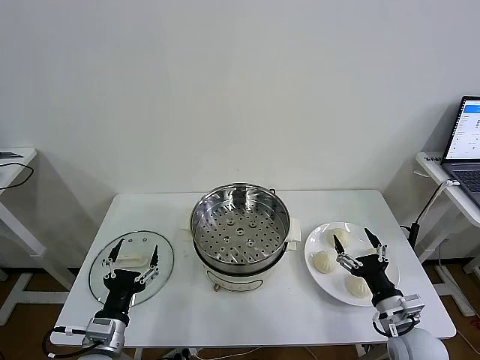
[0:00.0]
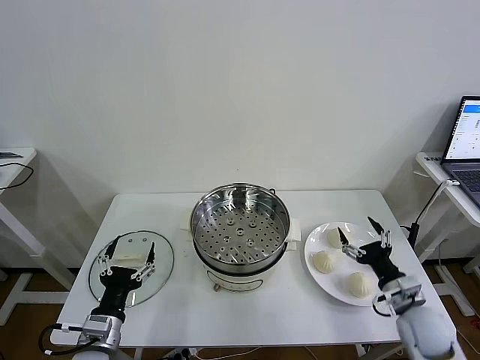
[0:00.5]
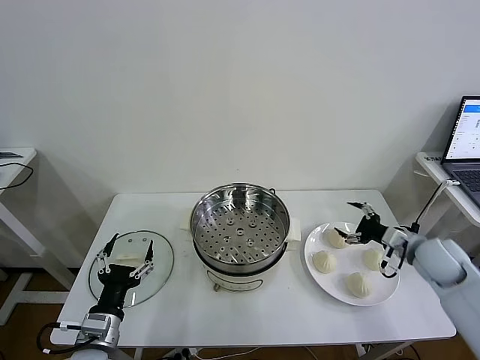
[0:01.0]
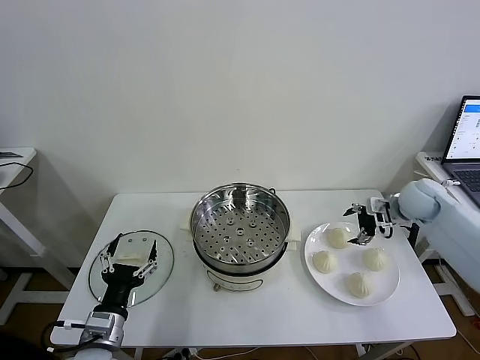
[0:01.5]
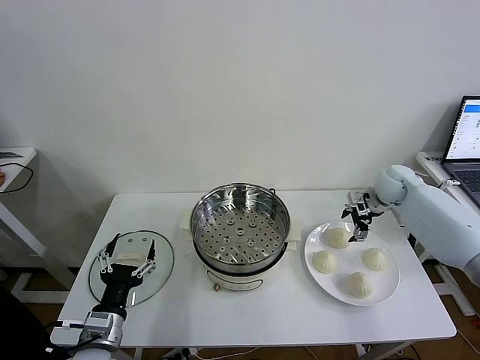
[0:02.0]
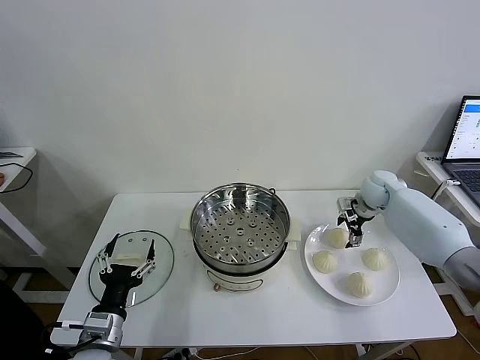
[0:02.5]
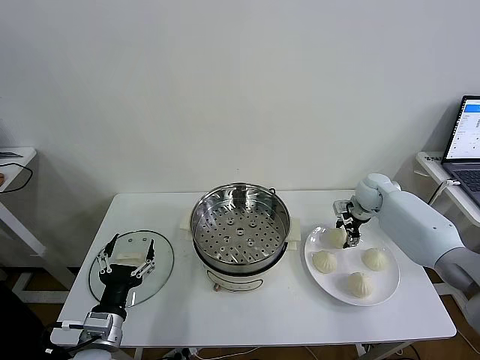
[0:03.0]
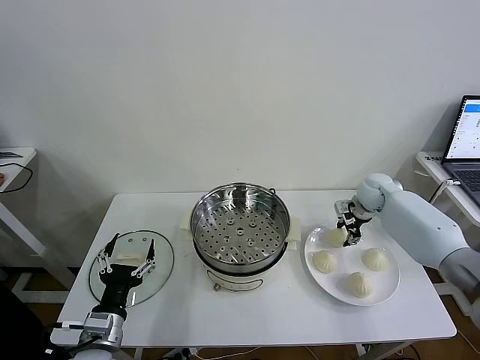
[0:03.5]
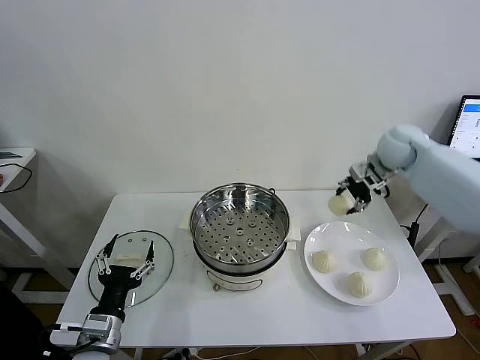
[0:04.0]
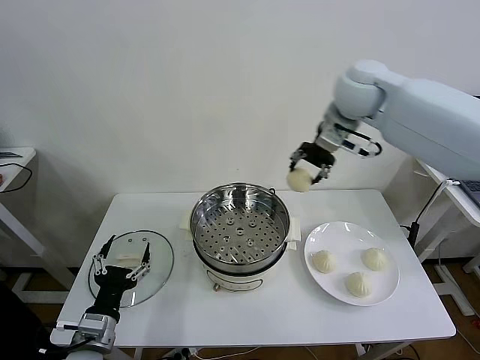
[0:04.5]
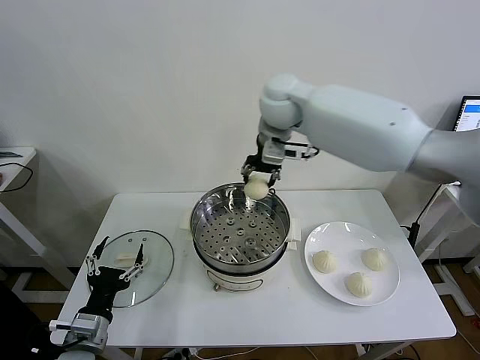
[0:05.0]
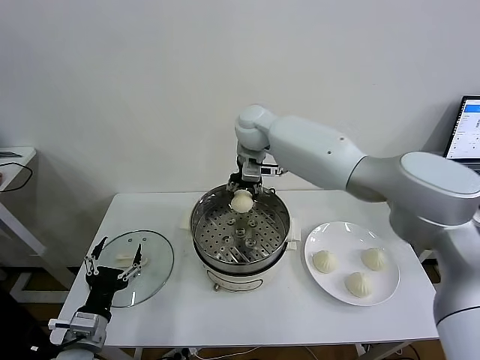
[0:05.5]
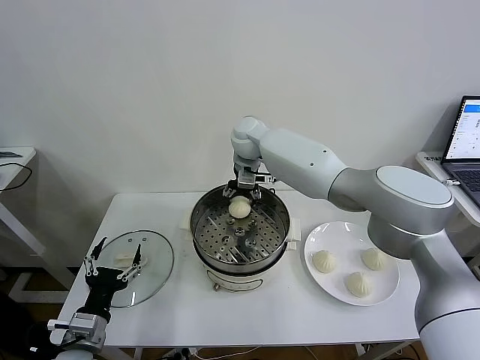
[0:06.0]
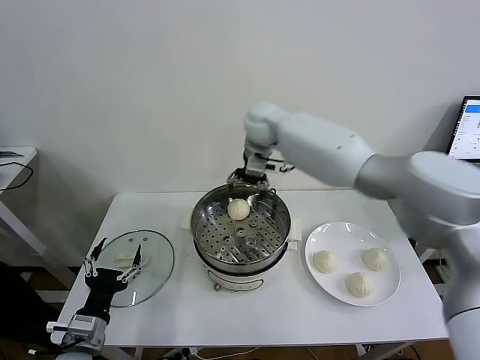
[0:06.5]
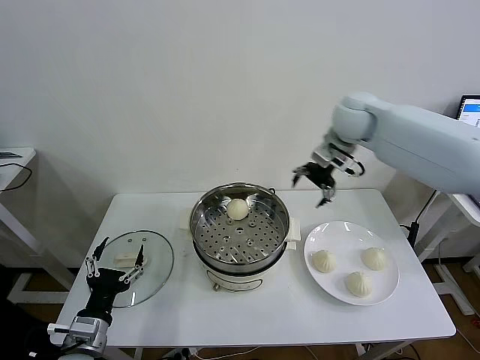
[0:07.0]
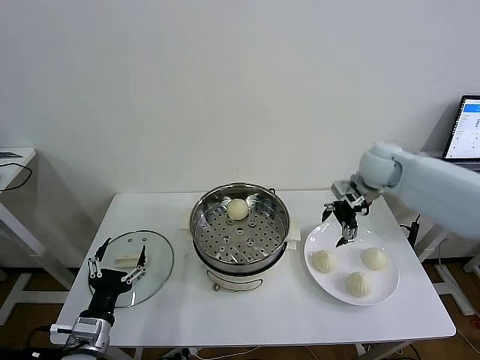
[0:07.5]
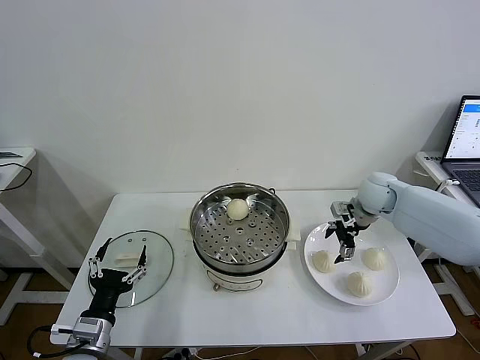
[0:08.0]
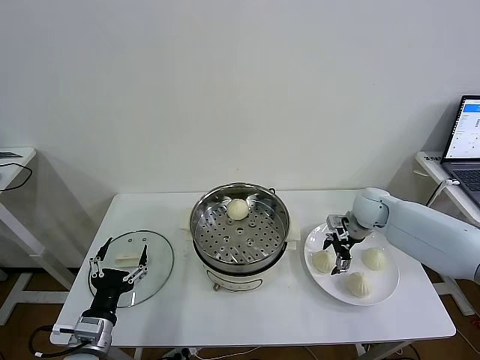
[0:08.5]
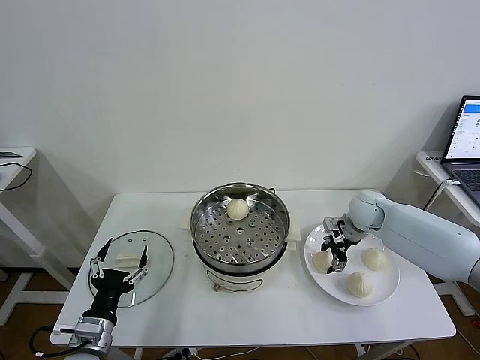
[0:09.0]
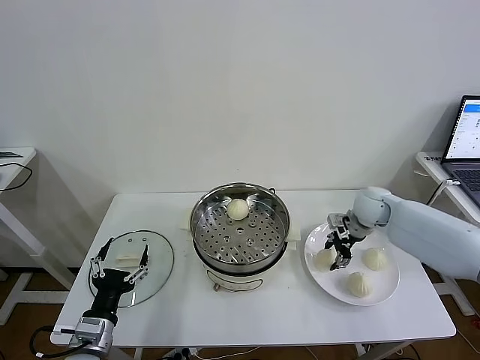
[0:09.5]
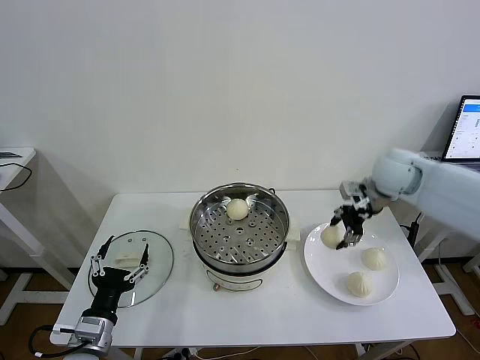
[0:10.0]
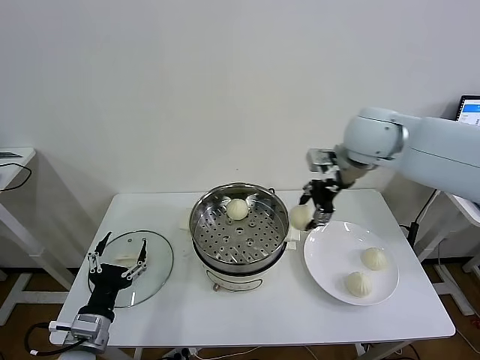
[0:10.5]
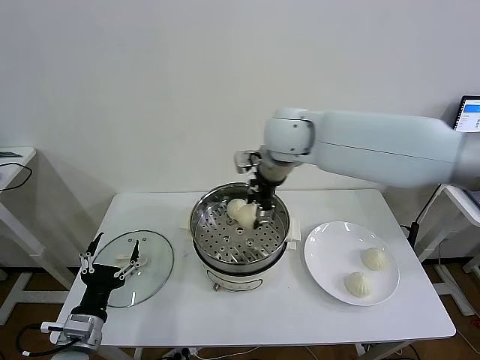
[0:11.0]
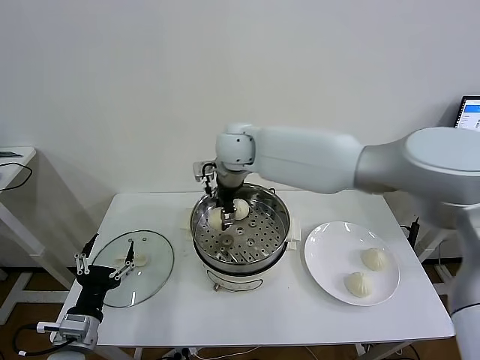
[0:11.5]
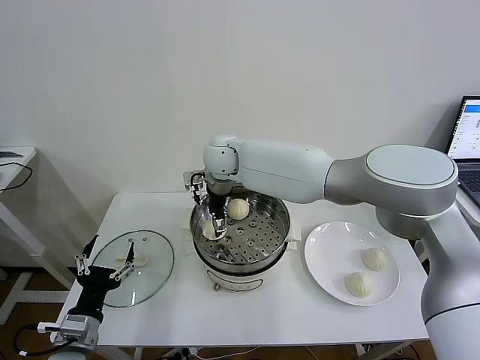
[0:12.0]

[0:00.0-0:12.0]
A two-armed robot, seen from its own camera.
Task of the whole recording: take steamed baozi put them in steamer then cover it.
Step, 0:00.0 to 0:03.0: Grasp the baozi in the plate with right gripper.
Step, 0:03.5 to 0:06.0: Place the baozi on the steamer with right gripper.
Step, 0:06.5 to 0:09.0: Grasp the baozi in the plate with right gripper.
Step, 0:09.5 to 0:12.0: Place the baozi on the steamer with right gripper.
0:02.0 to 0:04.0: The right gripper is displaced upward by some 15 cm, and closes.
0:04.0 to 0:06.0: The right gripper travels to the left by approximately 30 cm, and opens its fingers.
0:06.0 to 0:08.0: The right gripper goes approximately 30 cm to the right.
0:08.0 to 0:10.0: The right gripper heads upward, covering approximately 10 cm, and closes up.
0:10.0 to 0:12.0: The right gripper travels to the left by some 35 cm, and opens.

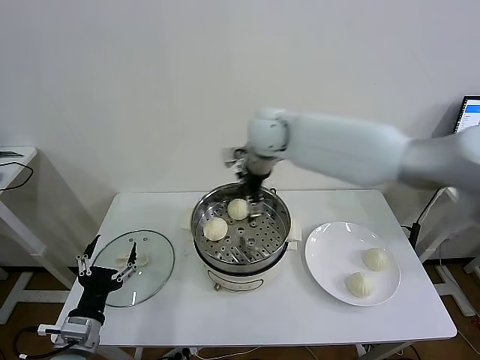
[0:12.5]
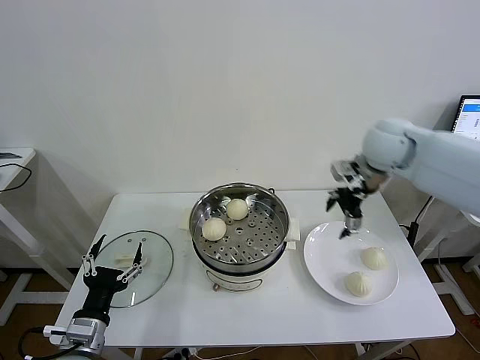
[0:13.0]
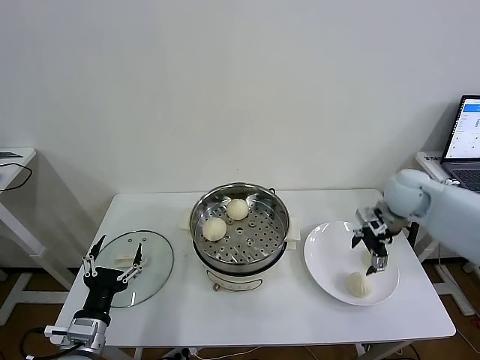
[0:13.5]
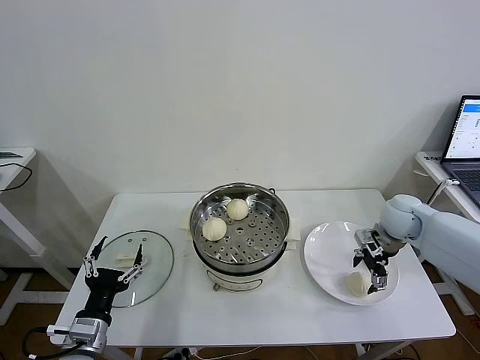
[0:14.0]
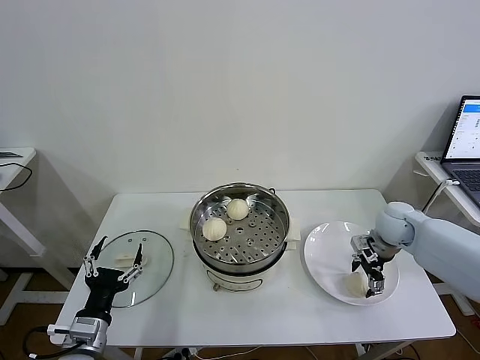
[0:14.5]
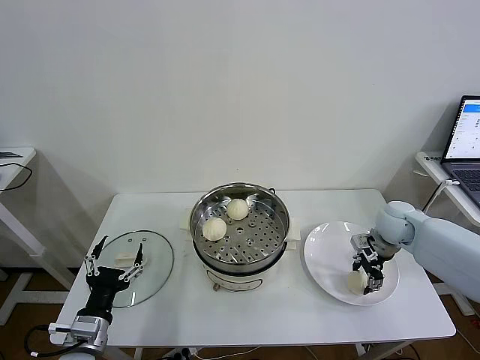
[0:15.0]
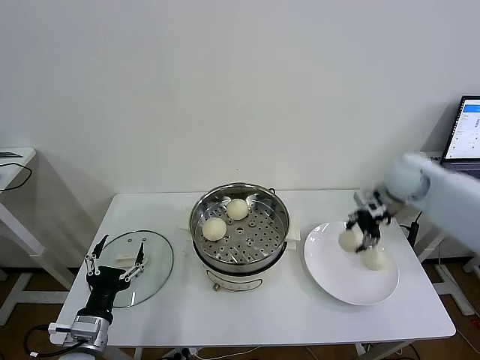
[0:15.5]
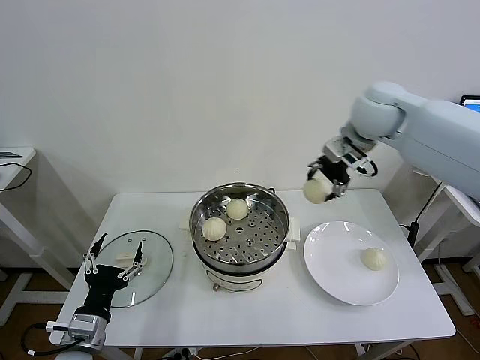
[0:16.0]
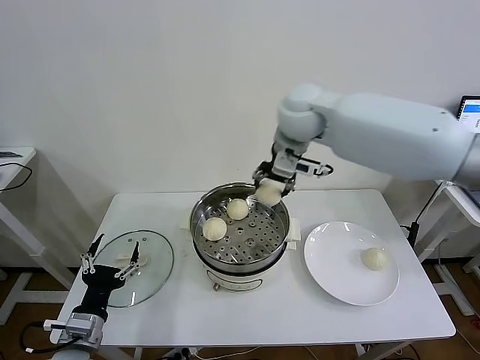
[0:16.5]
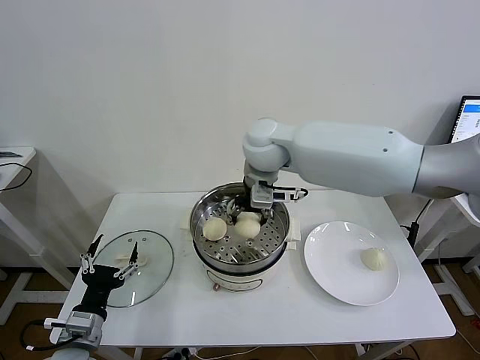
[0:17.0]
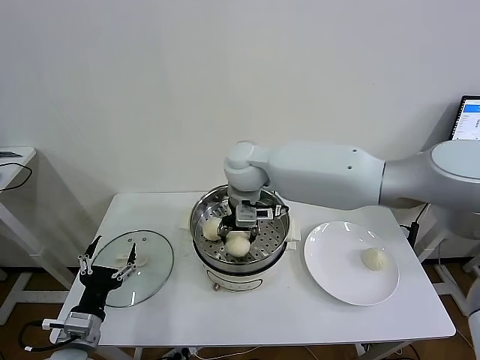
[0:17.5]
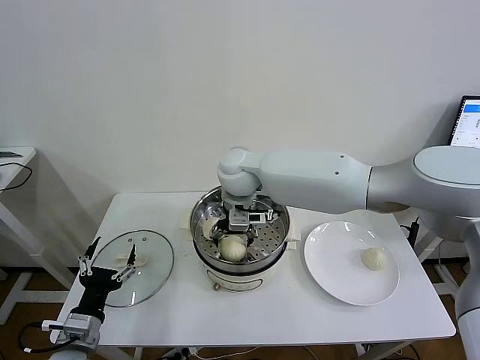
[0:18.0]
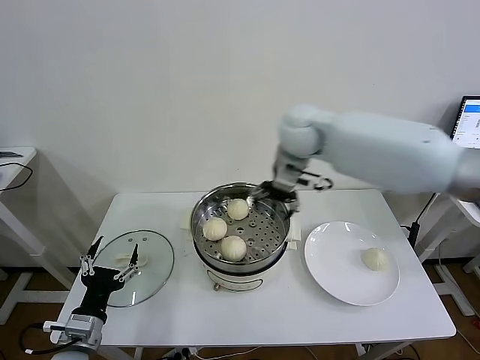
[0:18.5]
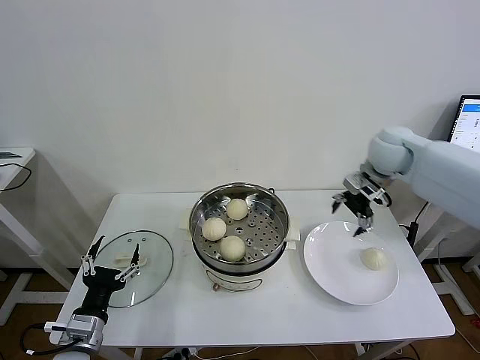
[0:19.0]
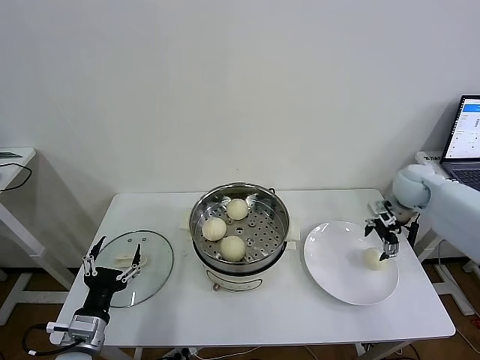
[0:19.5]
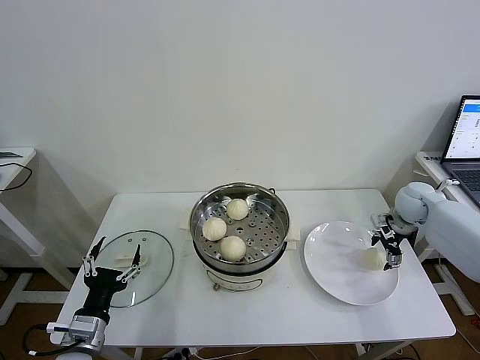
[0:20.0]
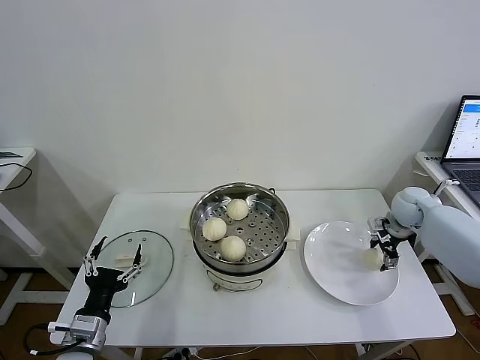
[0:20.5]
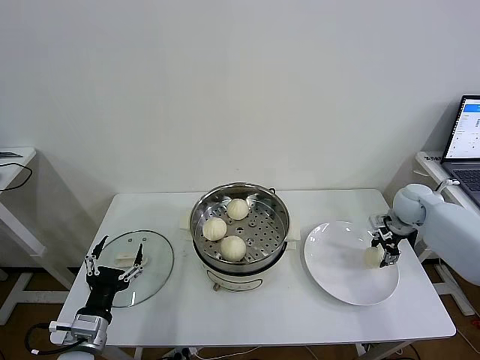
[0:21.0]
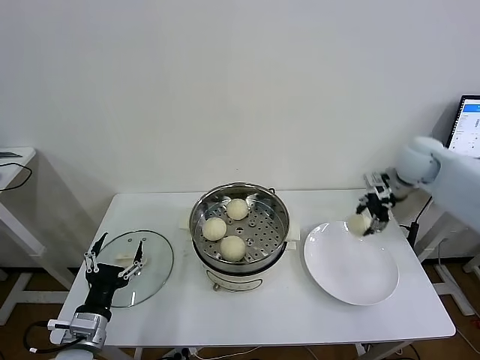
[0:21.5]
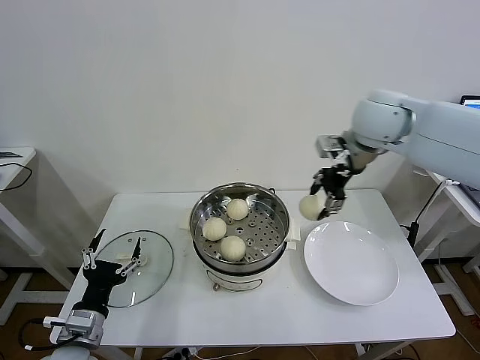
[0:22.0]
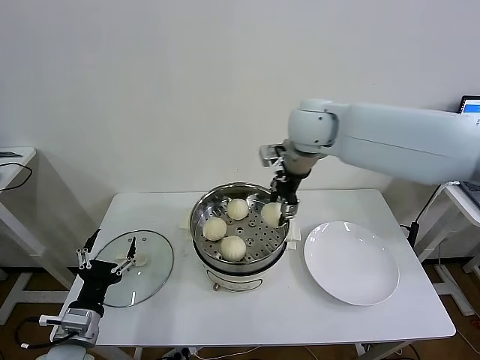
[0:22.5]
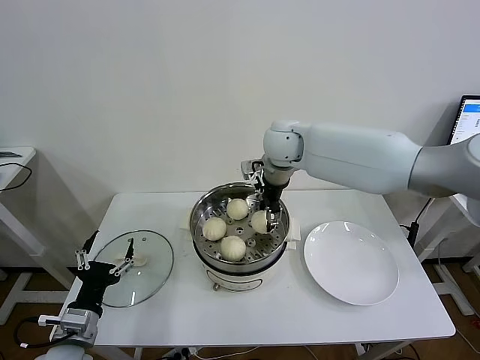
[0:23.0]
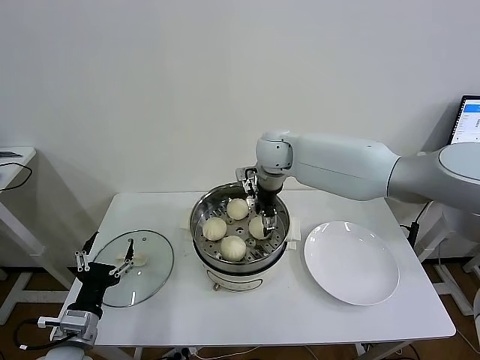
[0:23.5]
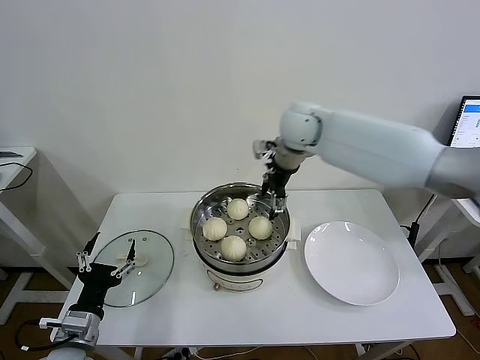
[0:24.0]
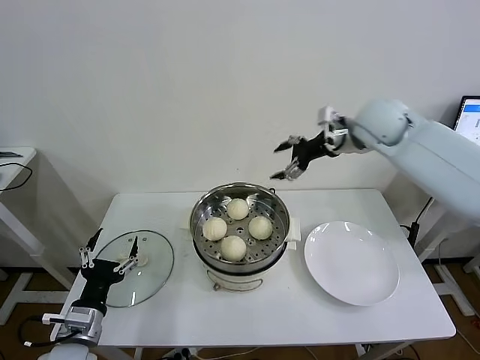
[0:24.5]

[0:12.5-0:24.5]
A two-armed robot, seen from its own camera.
Task of the whole recording: take steamed baozi put them in steamer then cover it.
Step, 0:12.5 to 0:14.5: Grasp the baozi in the plate with right gripper.
Step, 0:15.0 to 0:18.0: Place the baozi on the steamer with right gripper.
Step, 0:18.5 to 0:20.5: Grasp the baozi in the plate with right gripper.
Step, 0:21.0 to 0:23.5: Place the baozi on the steamer with right gripper.
0:12.5 to 0:14.5: The right gripper goes about 35 cm to the right and downward.
0:14.5 to 0:16.5: The right gripper goes some 35 cm to the left and upward, and closes up.
0:16.5 to 0:18.5: The right gripper reaches about 10 cm to the left, then returns, and opens its fingers.
0:18.5 to 0:20.5: The right gripper goes roughly 40 cm to the right and downward.
0:20.5 to 0:22.5: The right gripper moves to the left and upward, approximately 40 cm, and closes.
0:22.5 to 0:24.5: The right gripper goes approximately 15 cm to the right, and opens up.

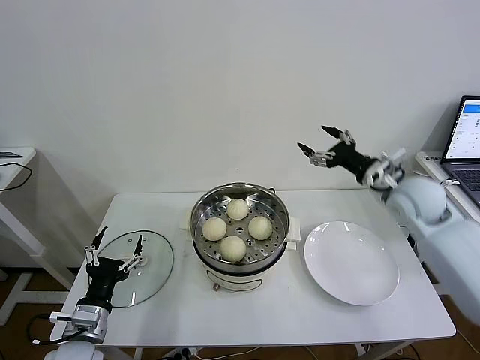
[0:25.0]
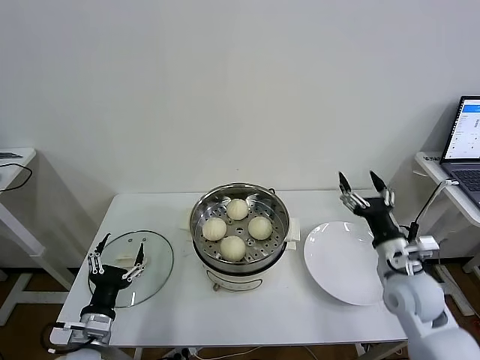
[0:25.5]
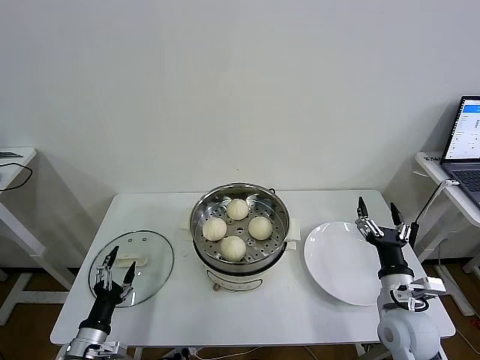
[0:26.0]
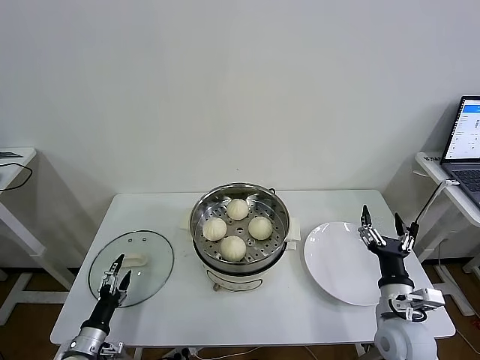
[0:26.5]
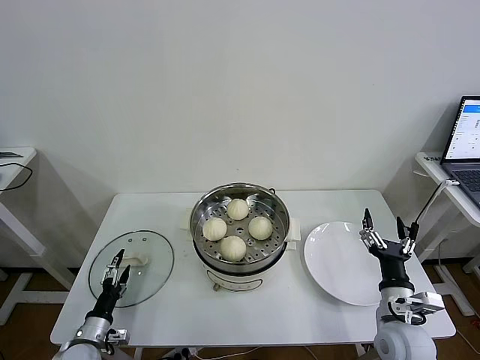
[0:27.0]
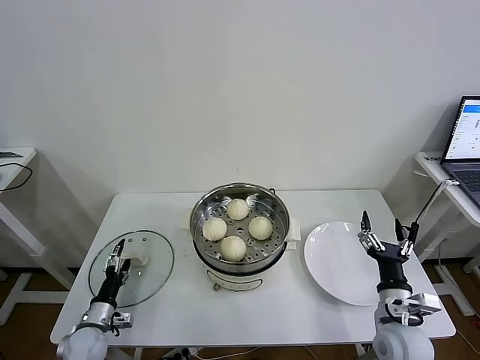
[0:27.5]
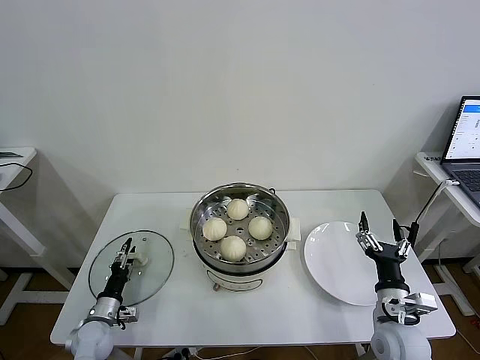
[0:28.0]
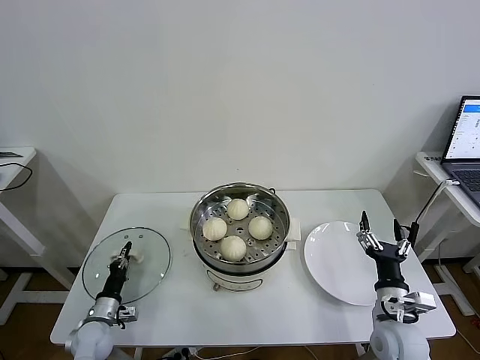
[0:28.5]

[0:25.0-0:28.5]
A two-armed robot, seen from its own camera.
Task of the whole recording: take steamed baozi put them in steamer then cover it.
Step, 0:25.0 to 0:28.5: Grasp the pot lid with left gripper.
0:25.0 to 0:27.0: The right gripper travels backward and downward by some 30 cm. The left gripper is displaced downward and to the left by roughly 15 cm.
0:27.0 to 0:28.5: The left gripper travels forward by some 5 cm, and closes up.
